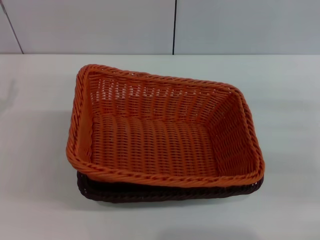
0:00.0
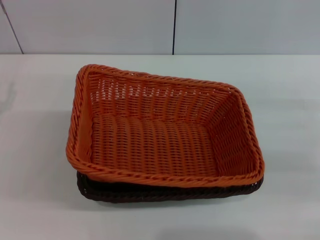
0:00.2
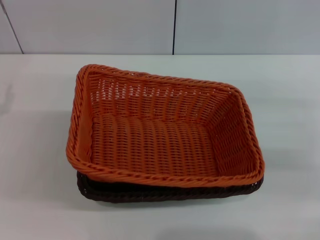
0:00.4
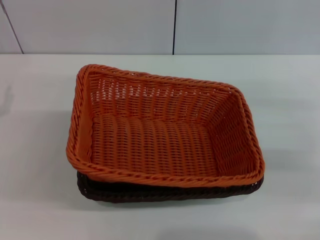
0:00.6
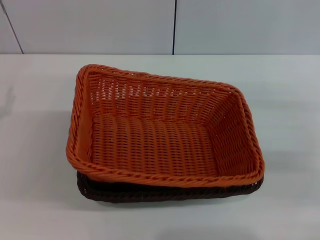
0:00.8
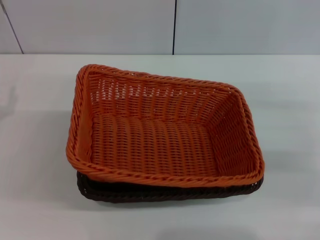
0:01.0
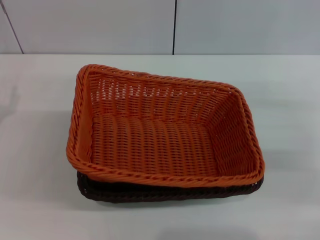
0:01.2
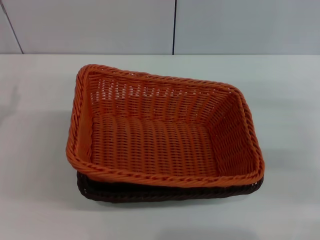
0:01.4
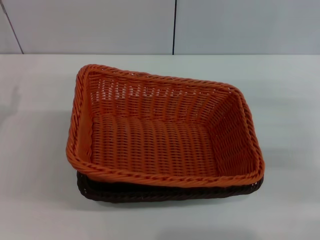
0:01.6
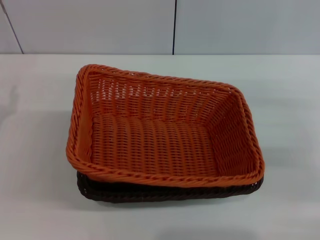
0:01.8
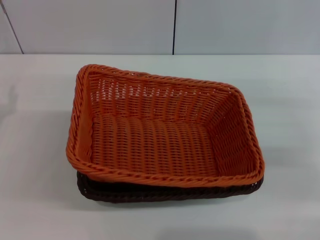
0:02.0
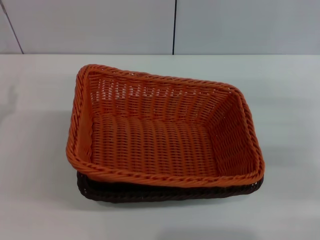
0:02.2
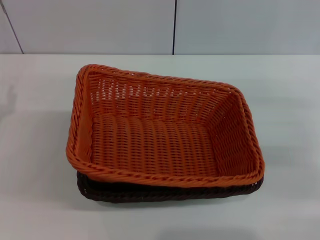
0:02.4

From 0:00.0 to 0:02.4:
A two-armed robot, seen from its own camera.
From 0:01.2 to 0:02.4: The two grippers keep their place.
